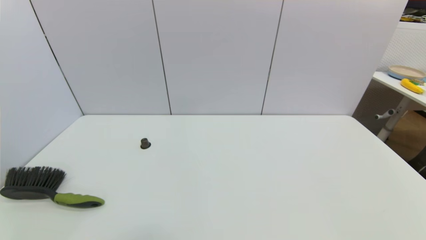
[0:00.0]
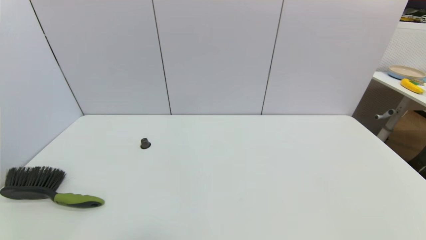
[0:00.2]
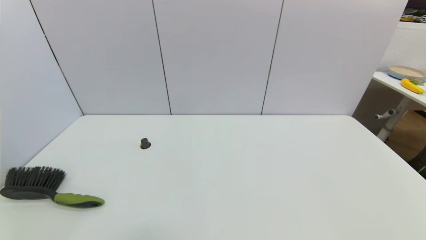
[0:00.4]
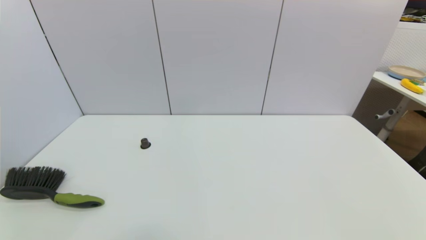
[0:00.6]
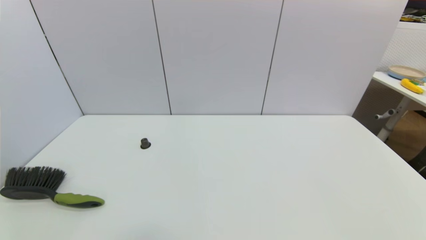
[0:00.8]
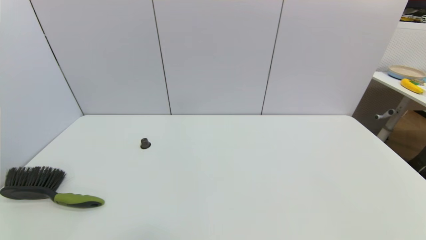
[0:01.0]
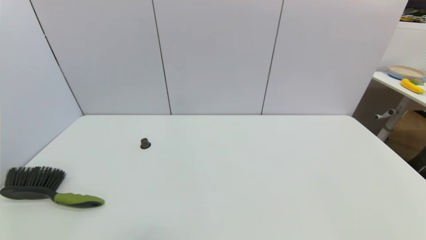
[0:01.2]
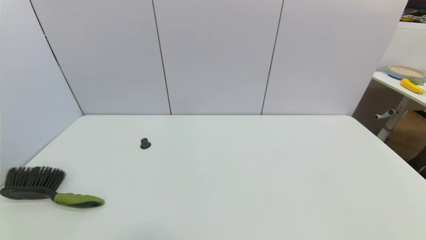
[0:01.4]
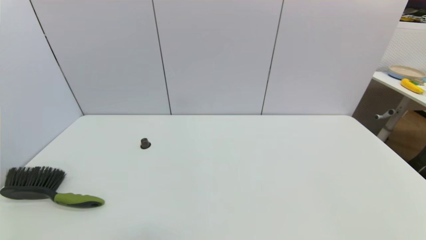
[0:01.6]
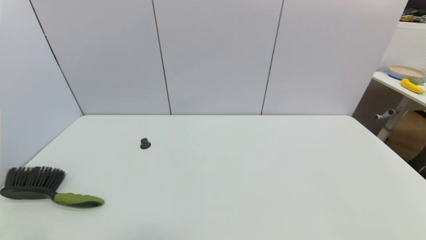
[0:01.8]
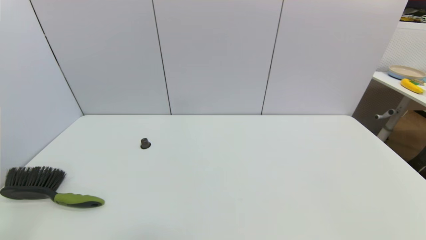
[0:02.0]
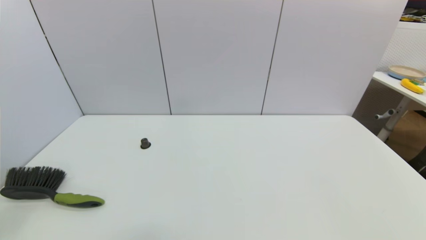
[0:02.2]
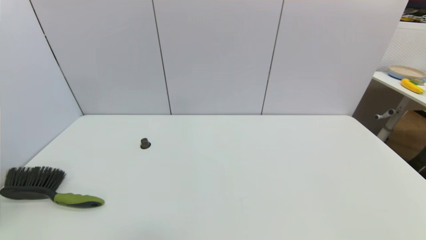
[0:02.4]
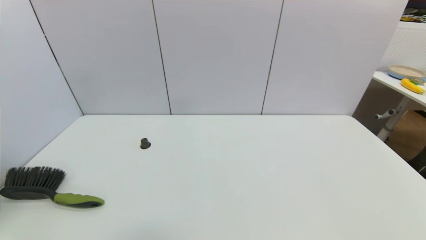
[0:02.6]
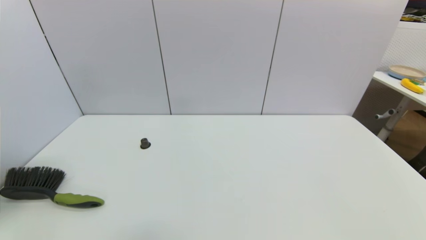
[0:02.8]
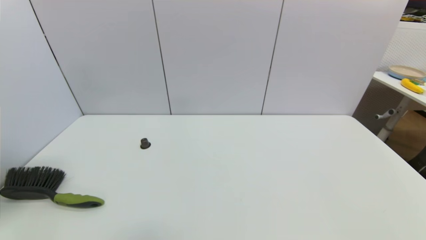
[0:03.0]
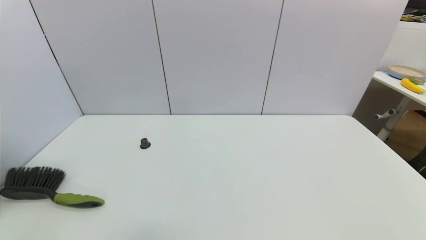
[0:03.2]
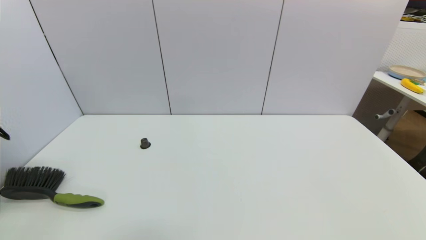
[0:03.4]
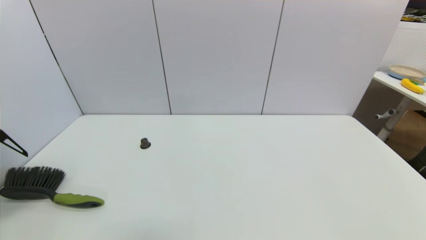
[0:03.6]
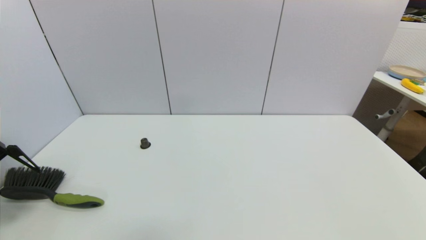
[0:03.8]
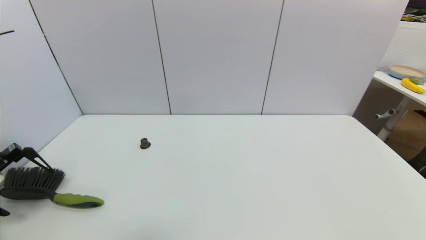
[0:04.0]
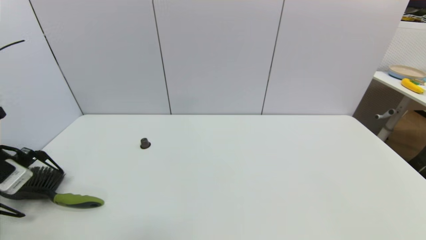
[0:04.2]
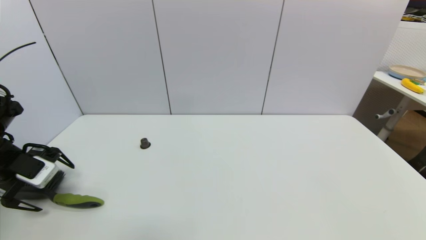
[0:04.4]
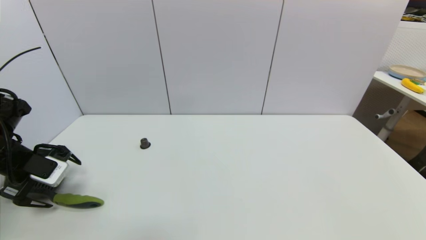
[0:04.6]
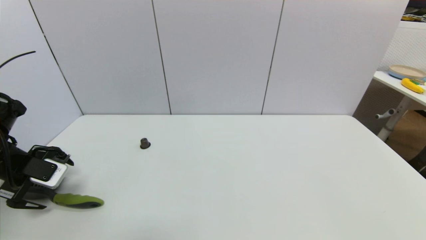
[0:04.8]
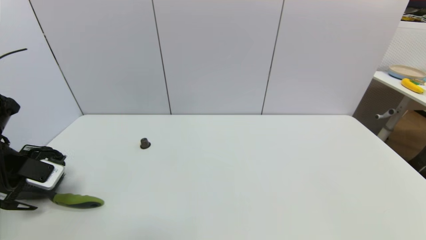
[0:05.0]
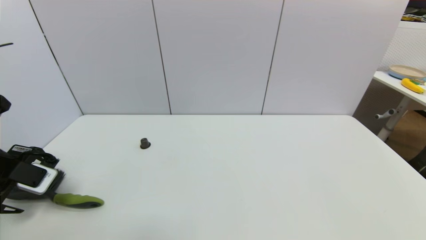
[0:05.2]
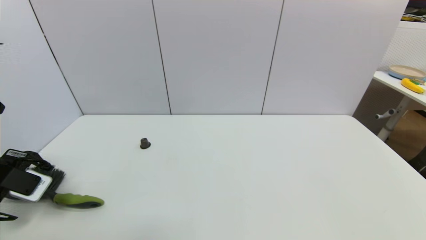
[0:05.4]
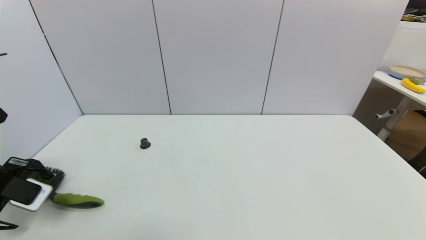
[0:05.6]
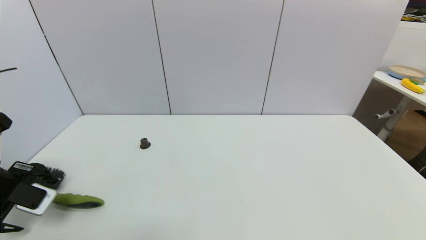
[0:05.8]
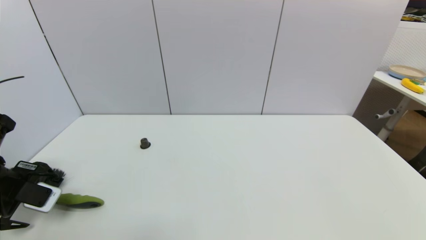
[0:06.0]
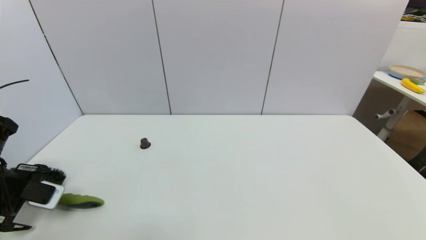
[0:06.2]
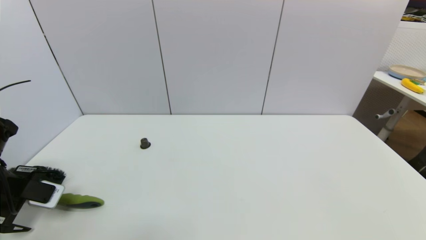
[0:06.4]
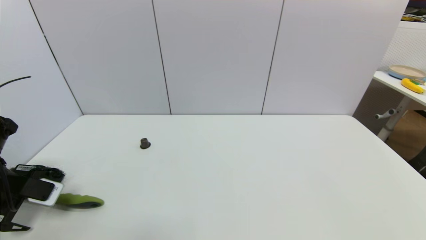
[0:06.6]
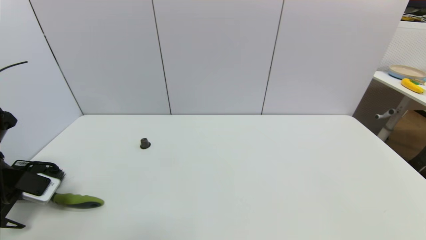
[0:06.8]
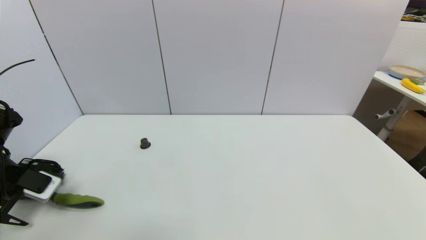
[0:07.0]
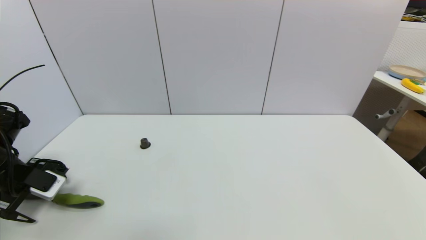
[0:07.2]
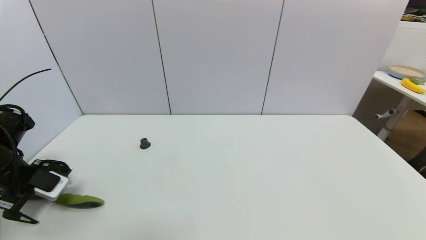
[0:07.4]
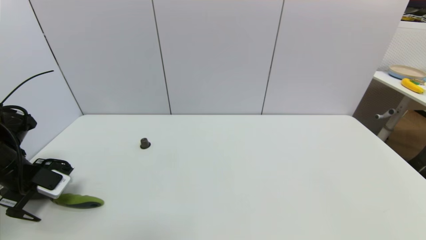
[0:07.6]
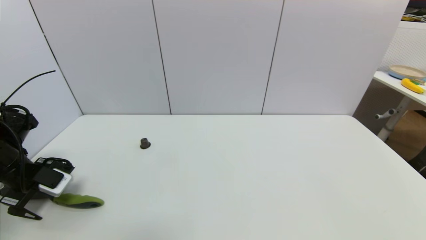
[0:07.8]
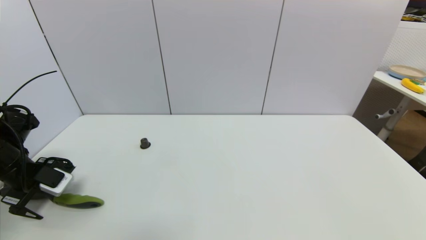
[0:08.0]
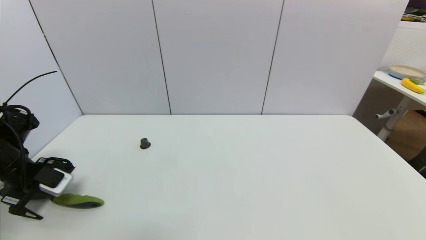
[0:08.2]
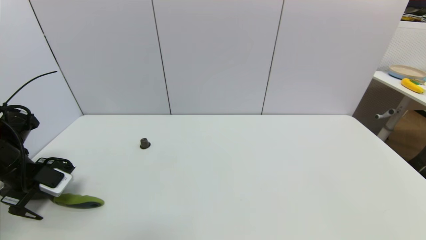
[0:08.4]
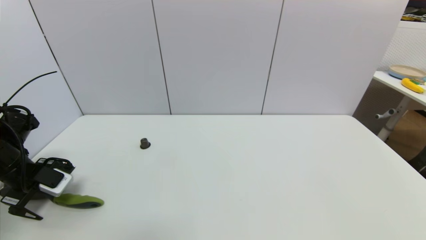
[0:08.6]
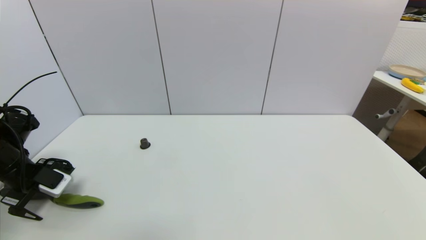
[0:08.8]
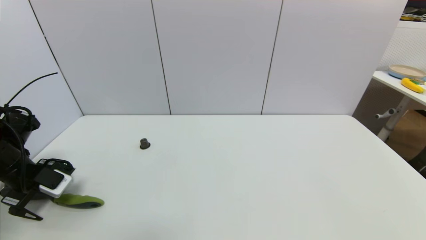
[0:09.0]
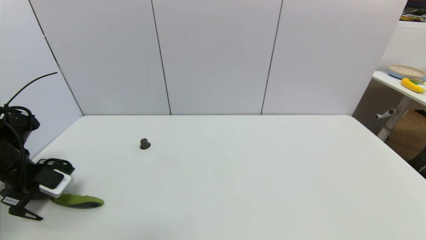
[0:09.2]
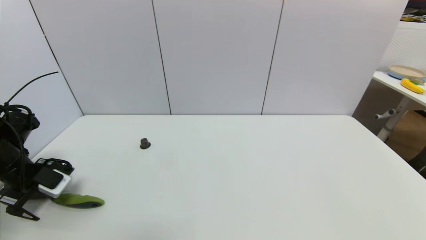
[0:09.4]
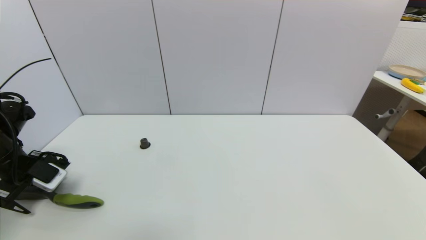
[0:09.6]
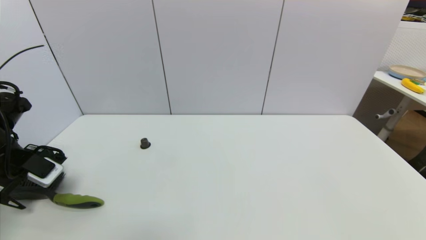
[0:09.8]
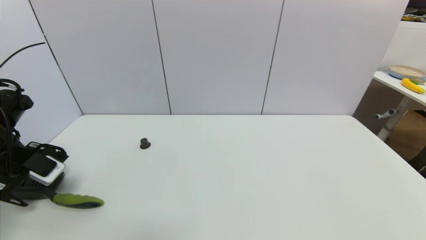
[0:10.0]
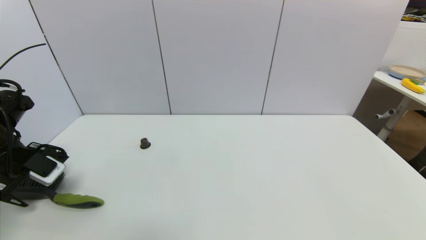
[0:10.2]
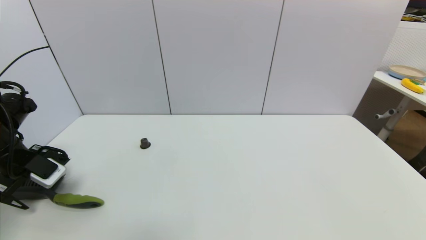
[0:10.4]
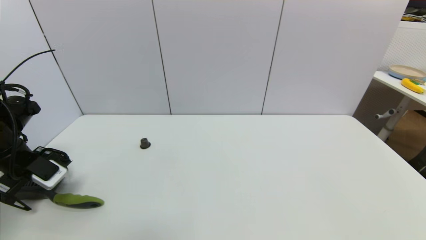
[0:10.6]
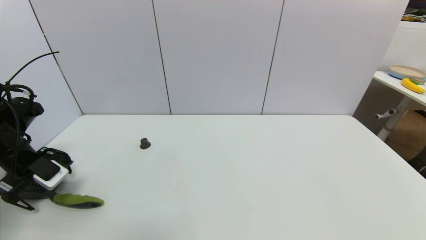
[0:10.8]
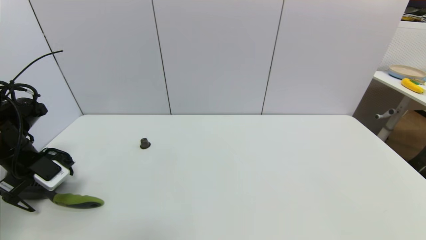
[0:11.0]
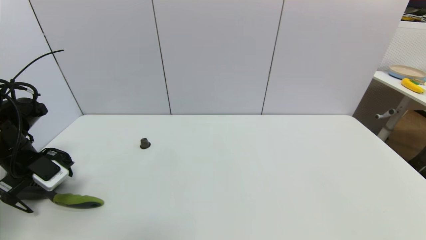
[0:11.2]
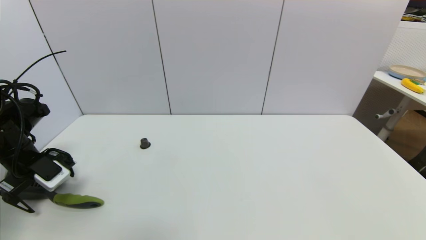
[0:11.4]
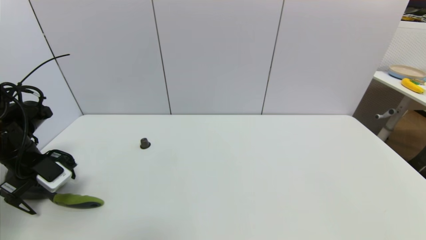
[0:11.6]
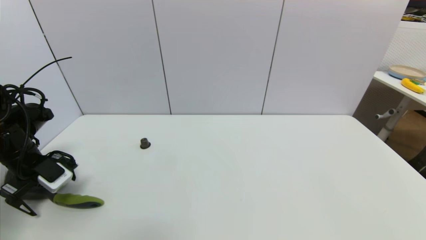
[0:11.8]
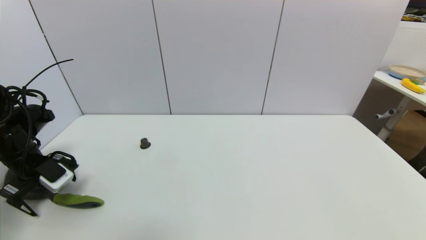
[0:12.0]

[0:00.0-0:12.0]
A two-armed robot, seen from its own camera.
Task of the whole recording: put the brush in the designated position.
3.0 to 4.4 s: The left gripper moves downward and forward, roughly 20 cm.
4.4 to 6.0 s: The grippers stay close to where they were, moving slightly.
6.0 to 7.6 s: The left gripper is displaced forward by some 5 cm.
7.6 to 9.0 s: There are only small adjustments of the grippers.
9.0 to 10.4 s: The left gripper heads upward, covering approximately 5 cm.
10.4 to 12.0 s: The grippers stay close to where they were, moving slightly.

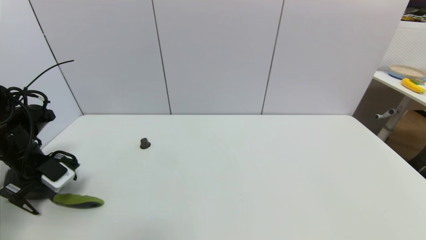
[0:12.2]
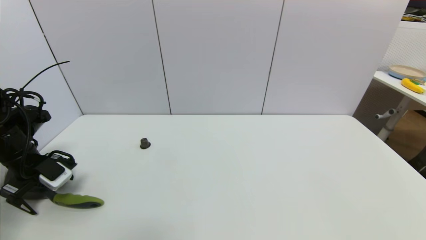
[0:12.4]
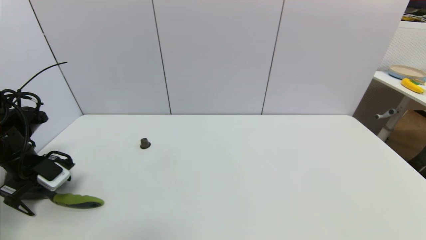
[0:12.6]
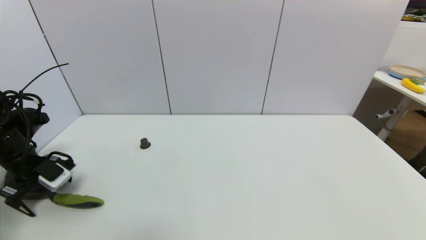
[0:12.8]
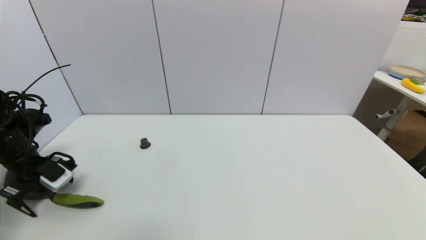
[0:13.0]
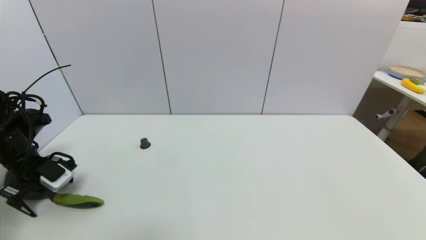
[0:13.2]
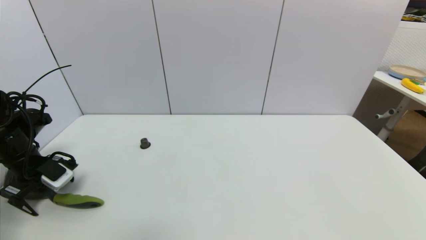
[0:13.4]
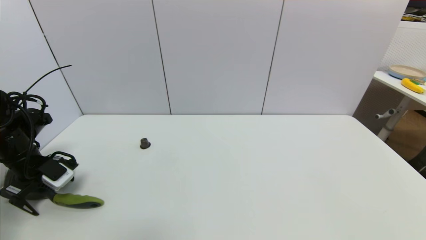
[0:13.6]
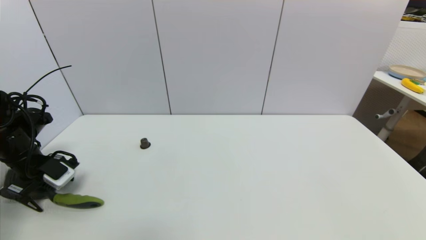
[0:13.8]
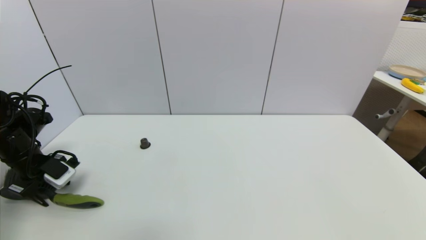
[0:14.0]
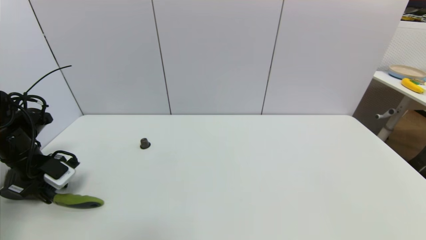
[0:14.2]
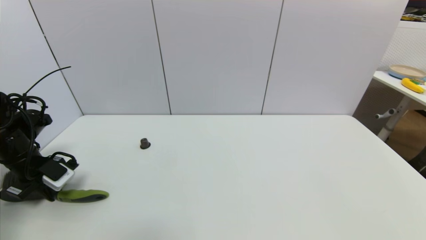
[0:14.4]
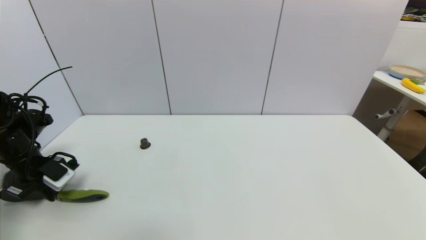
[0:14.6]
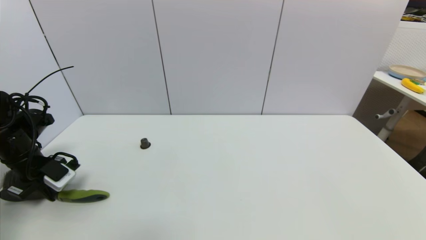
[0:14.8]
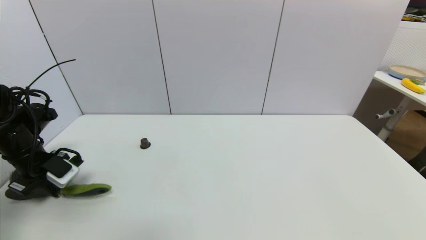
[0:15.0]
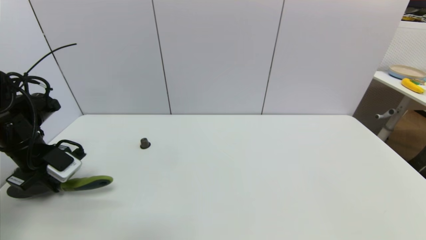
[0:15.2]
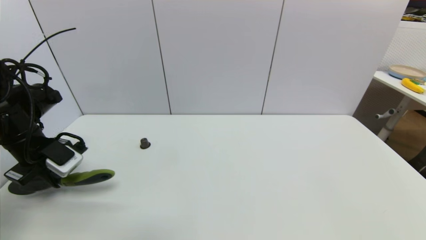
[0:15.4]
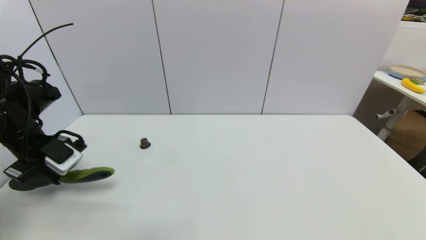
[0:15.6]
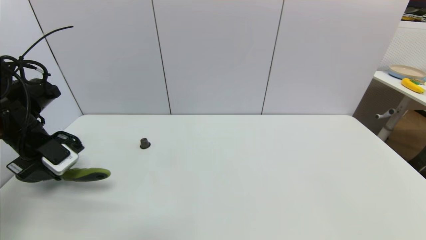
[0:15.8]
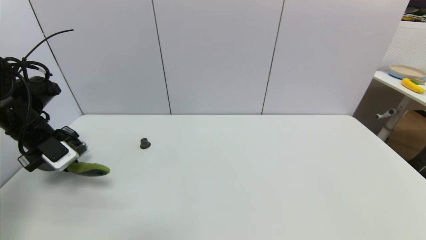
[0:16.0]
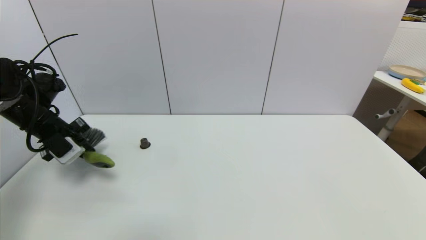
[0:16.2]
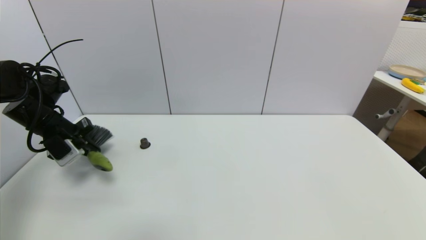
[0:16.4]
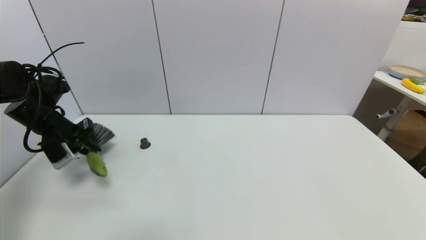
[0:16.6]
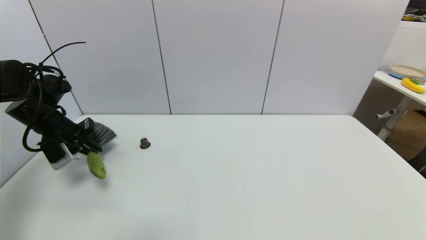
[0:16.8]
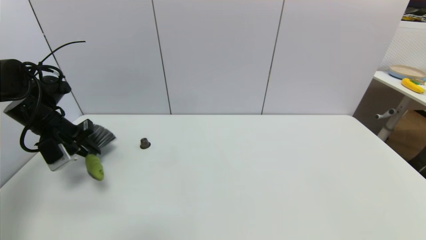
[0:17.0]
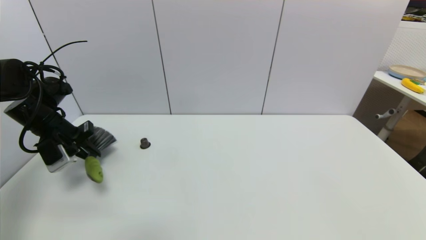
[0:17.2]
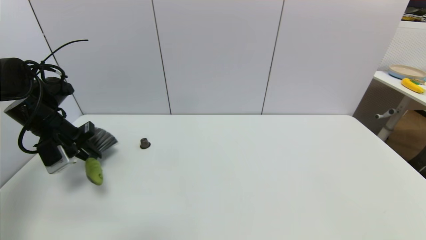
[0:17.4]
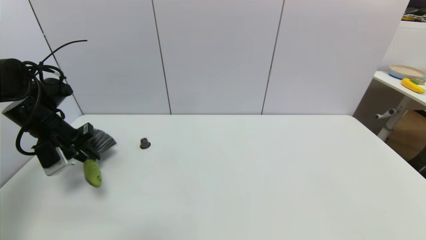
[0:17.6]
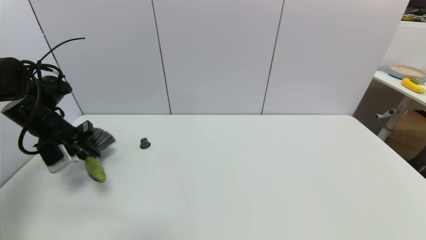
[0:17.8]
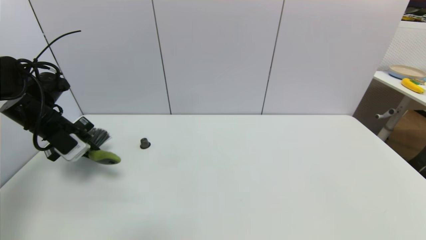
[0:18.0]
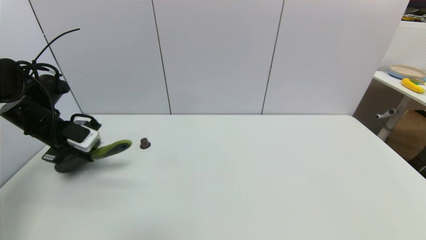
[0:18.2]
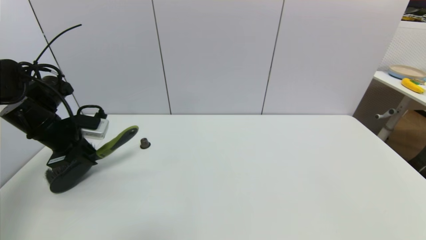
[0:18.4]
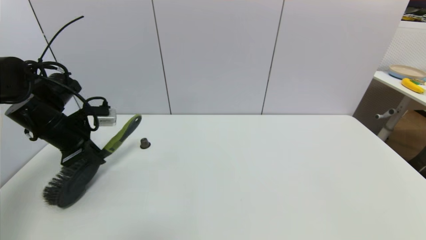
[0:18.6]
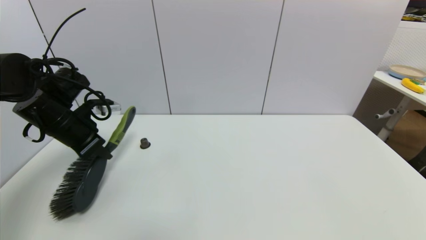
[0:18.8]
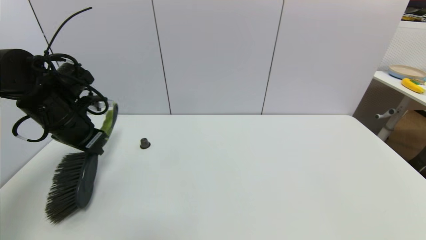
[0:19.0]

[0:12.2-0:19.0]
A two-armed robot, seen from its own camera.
Task of the whole recording: put the brush in the designated position.
Step, 12.2 to 14.4 s: Grasp the brush with left gripper.
12.2 to 13.6 s: The grippers stay close to where they were, moving slightly.
13.6 to 15.0 s: The left gripper closes its fingers.
15.0 to 16.2 s: The left gripper changes place by about 5 cm.
16.2 to 17.6 s: The grippers stay close to where they were, moving slightly.
17.6 to 19.0 s: The left gripper moves to the right, about 5 cm.
